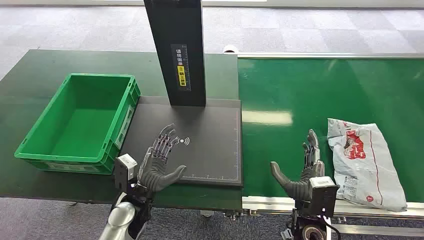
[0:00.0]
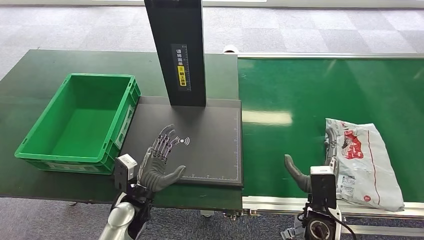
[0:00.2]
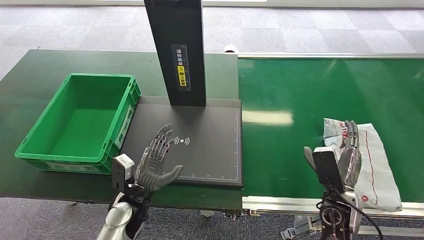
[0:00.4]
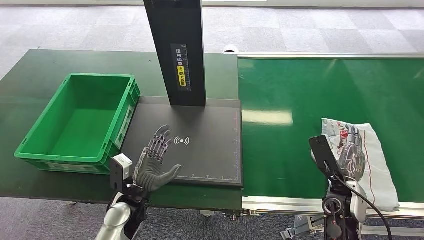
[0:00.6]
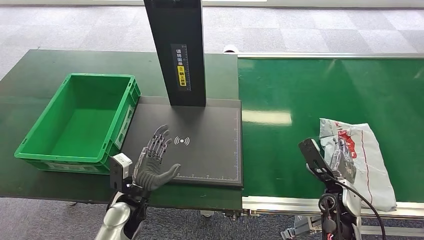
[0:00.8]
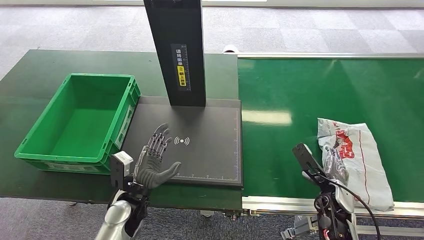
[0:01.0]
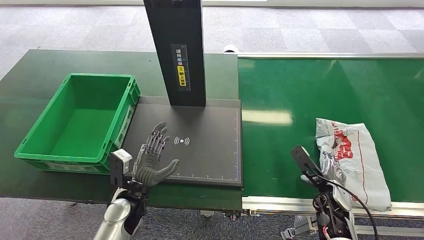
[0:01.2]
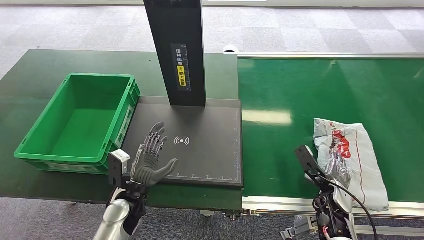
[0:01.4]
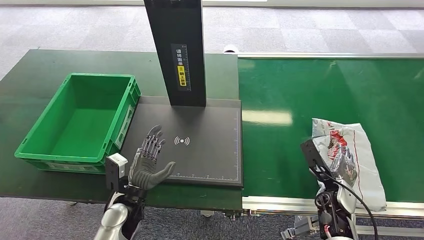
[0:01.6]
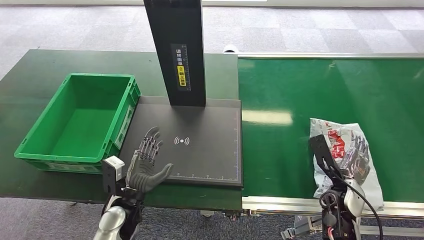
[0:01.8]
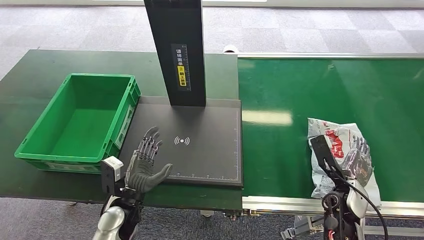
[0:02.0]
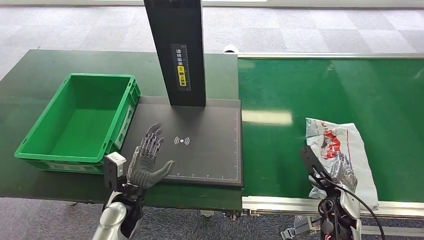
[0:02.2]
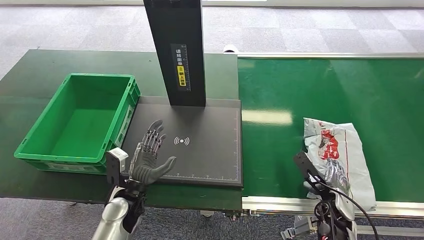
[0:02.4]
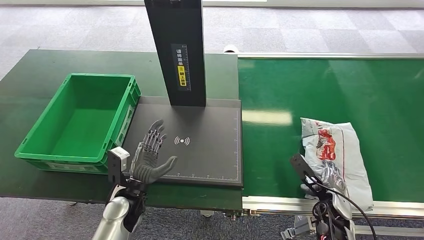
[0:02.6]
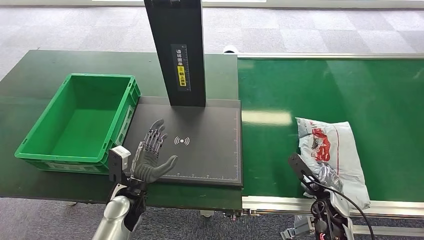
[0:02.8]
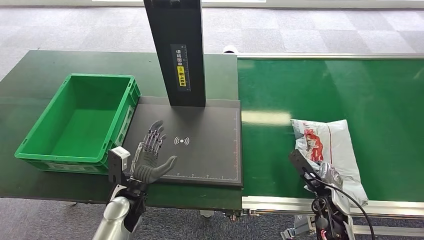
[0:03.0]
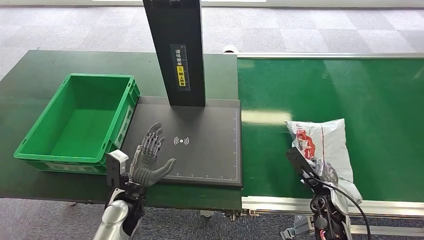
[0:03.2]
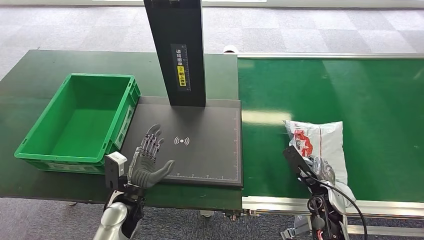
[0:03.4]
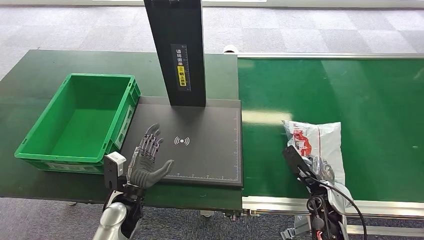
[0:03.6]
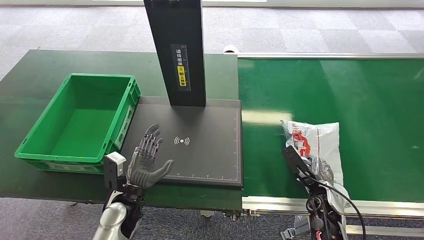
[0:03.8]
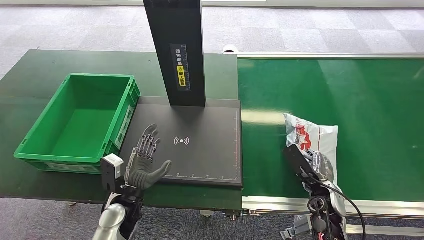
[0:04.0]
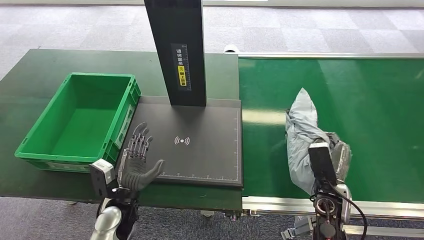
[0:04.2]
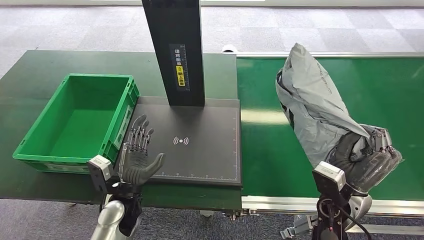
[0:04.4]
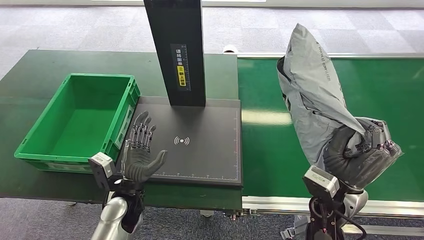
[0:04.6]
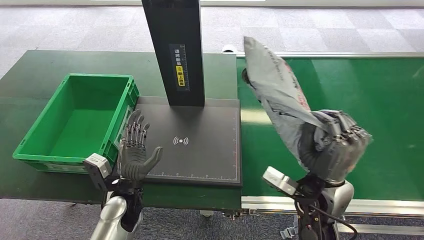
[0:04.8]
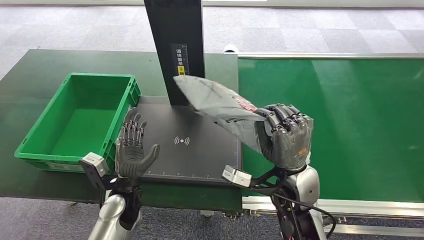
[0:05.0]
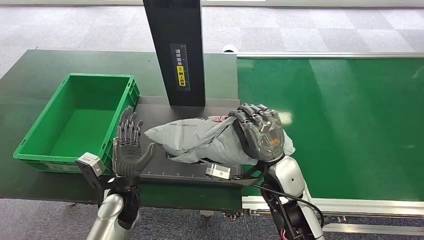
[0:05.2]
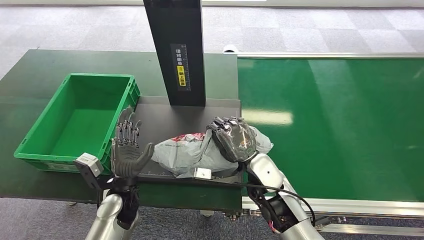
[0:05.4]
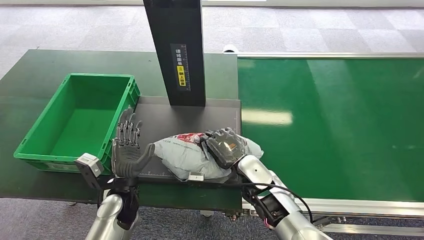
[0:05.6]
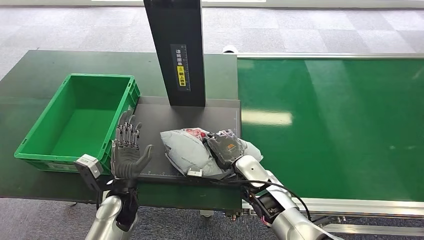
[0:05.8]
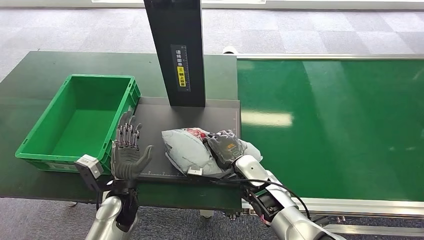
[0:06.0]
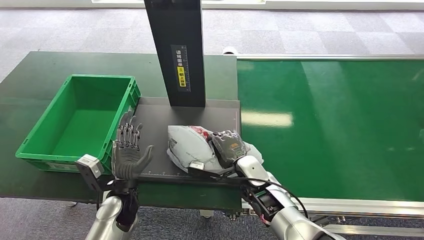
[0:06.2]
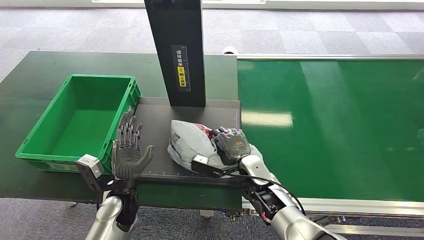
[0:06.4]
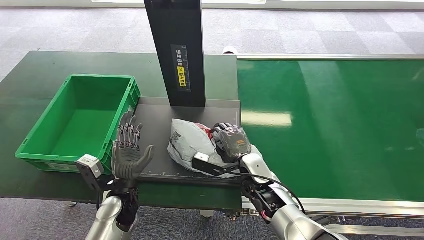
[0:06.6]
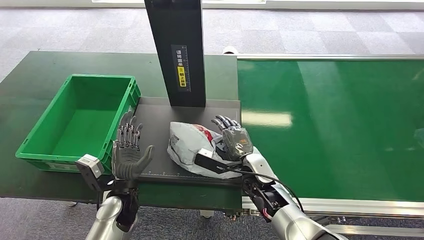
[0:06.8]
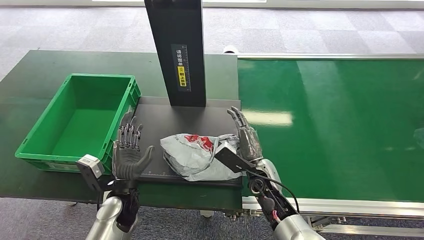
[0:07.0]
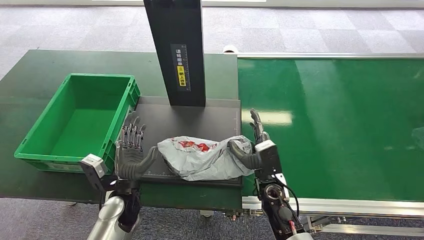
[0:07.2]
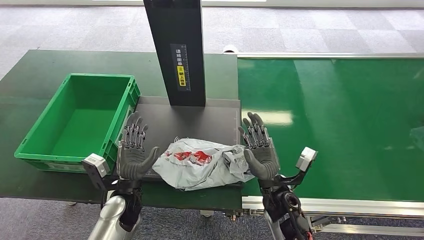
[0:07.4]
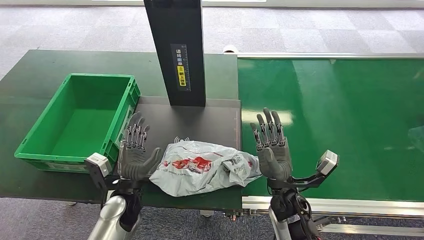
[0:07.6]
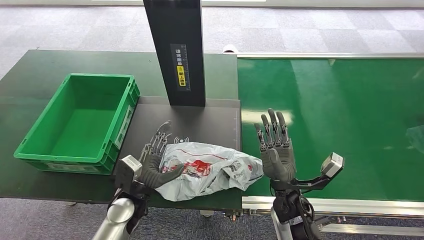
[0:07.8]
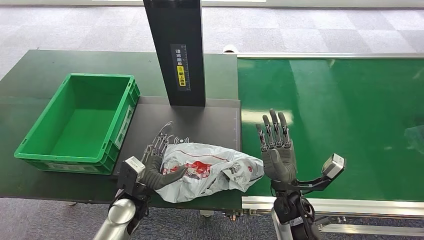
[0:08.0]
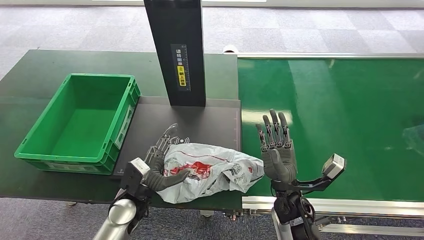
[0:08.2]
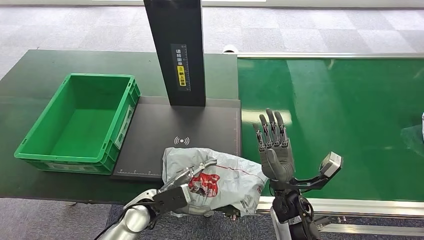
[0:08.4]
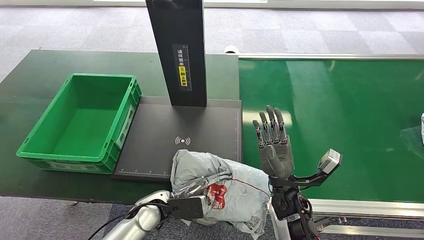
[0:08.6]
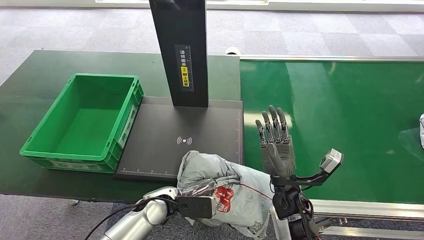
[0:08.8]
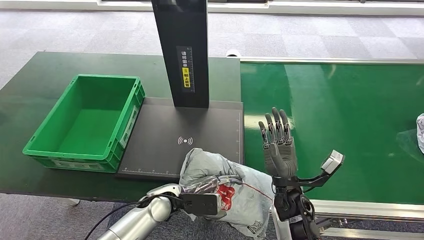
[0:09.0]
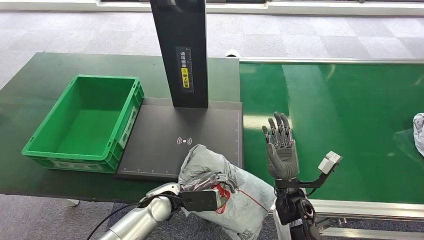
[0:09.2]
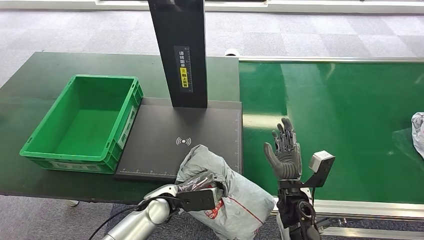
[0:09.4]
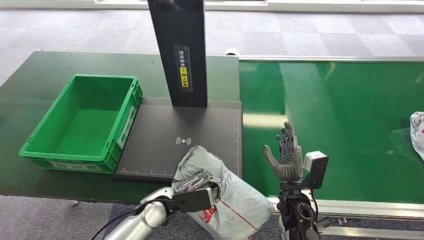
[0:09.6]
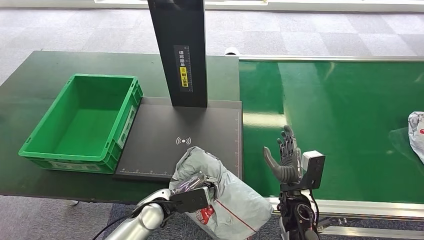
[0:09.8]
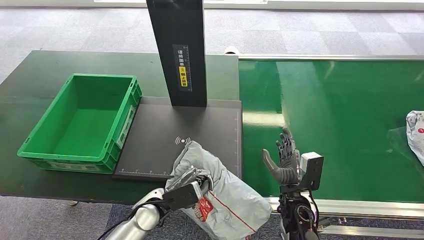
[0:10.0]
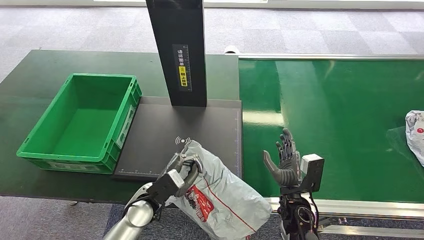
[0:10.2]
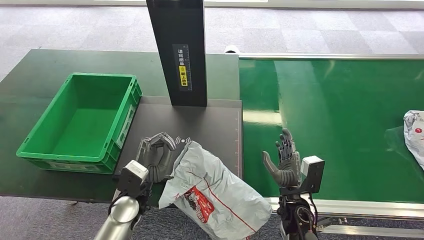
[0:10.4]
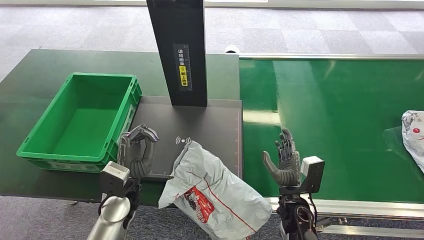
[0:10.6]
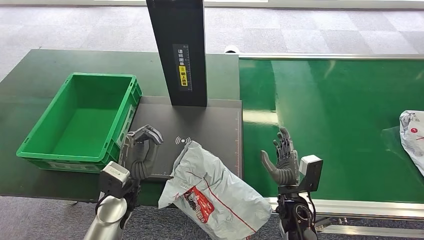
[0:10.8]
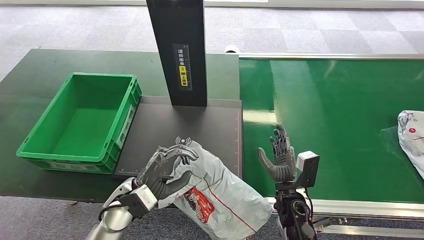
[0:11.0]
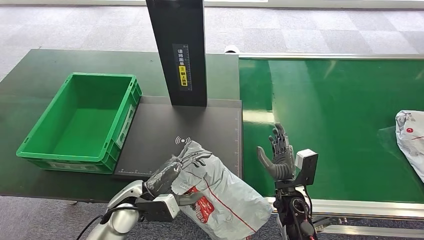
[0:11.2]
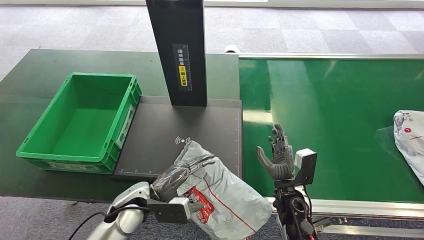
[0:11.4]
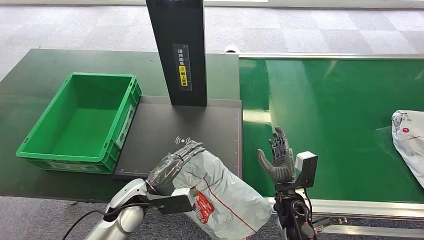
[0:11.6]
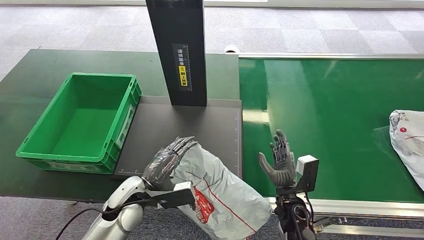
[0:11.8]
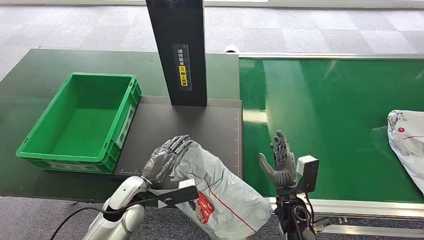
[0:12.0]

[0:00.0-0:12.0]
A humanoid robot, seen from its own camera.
Step, 0:00.0 to 0:04.2: Pick up the package from the conveyor belt.
Step, 0:04.6 to 0:07.6: Place the package onto the inbound machine.
0:01.6 to 0:03.0: The hands make only small movements.
0:03.0 to 0:04.4: The right hand is displaced upward and to the left by roughly 15 cm.
0:06.0 to 0:07.6: The right hand heads backward, covering approximately 5 cm.

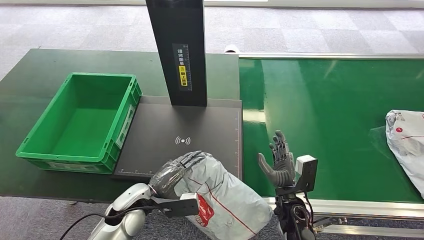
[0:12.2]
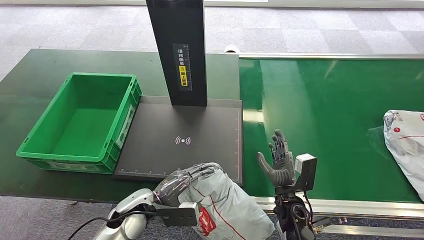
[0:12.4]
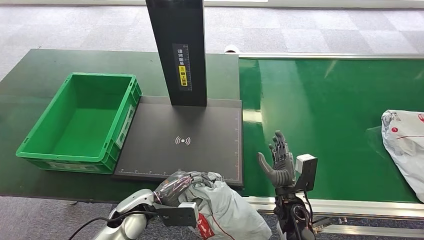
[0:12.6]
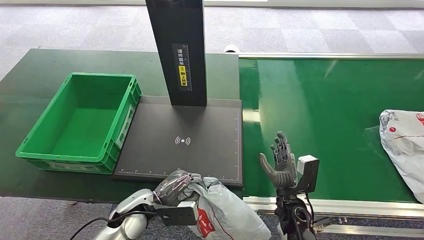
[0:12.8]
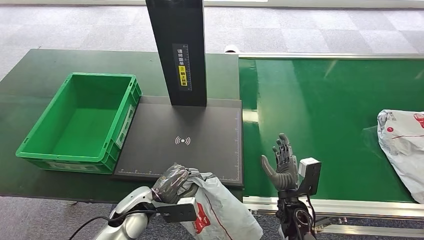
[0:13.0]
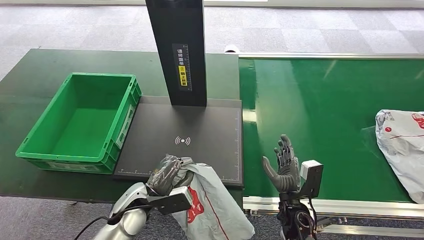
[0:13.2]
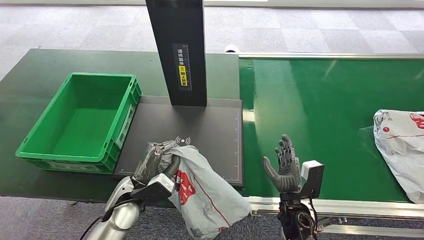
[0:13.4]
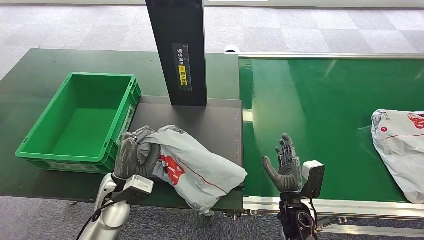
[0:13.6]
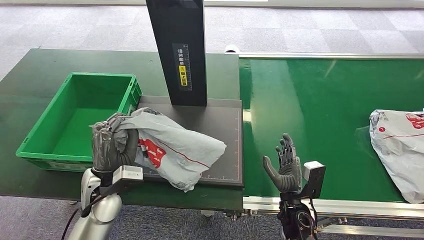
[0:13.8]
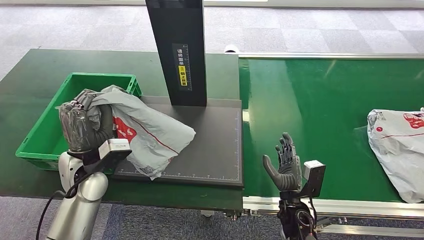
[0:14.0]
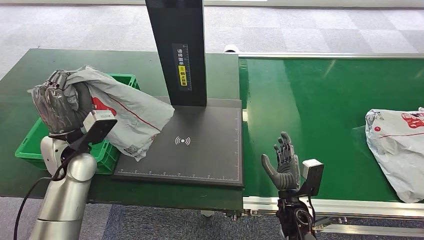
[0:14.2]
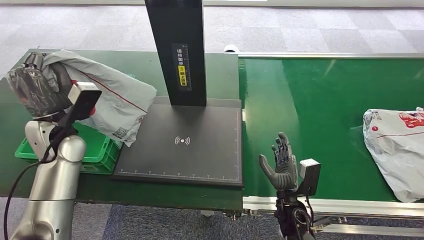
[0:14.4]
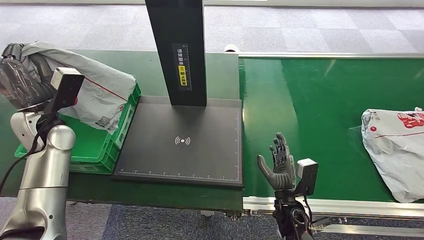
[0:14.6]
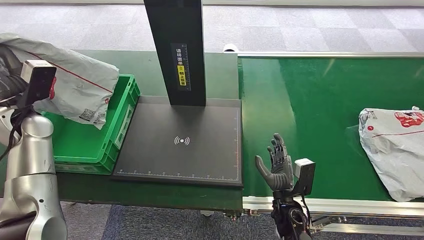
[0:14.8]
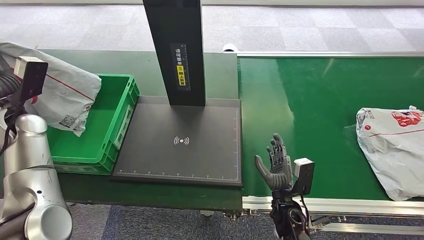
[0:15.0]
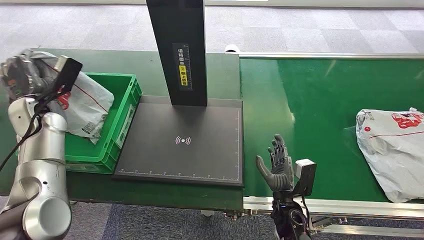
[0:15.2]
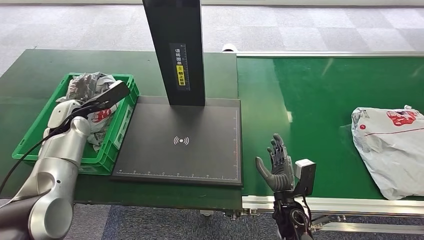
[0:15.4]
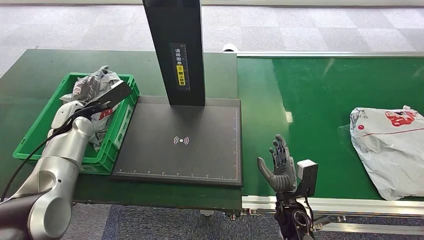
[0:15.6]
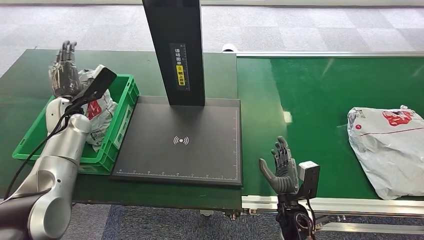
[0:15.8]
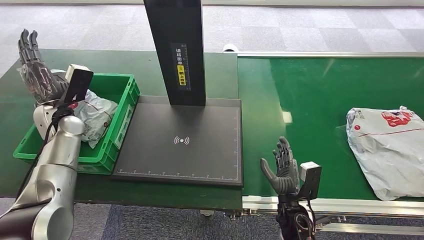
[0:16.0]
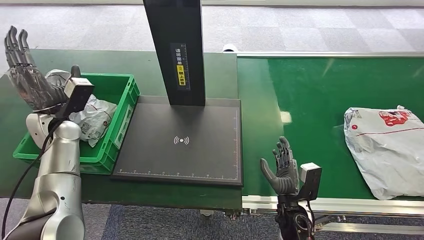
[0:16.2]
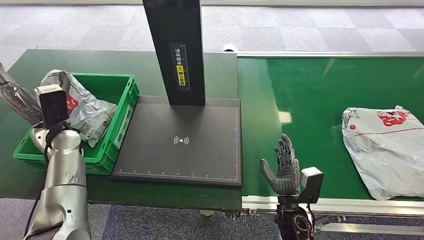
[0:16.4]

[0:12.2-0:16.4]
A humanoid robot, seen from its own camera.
Step, 0:12.2 to 0:13.8: Pick up the package from the inbound machine.
Step, 0:14.0 to 0:16.4: Place the package into the parcel locker.
0:12.2 to 0:13.6: The left hand ends up some 5 cm from where it was.

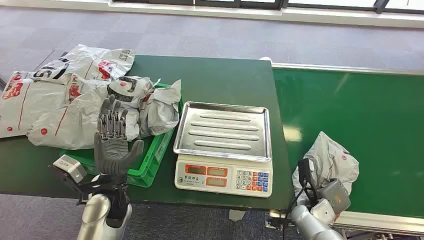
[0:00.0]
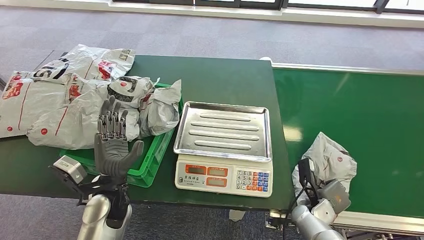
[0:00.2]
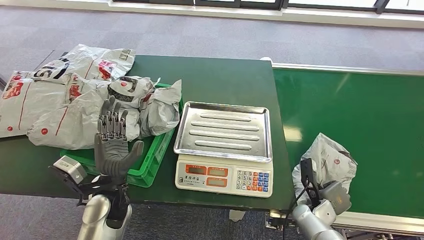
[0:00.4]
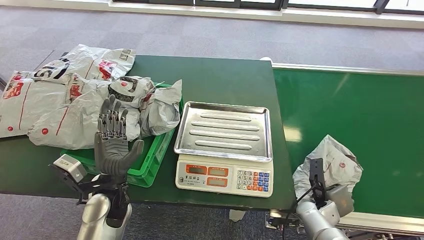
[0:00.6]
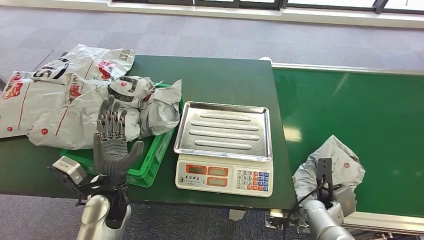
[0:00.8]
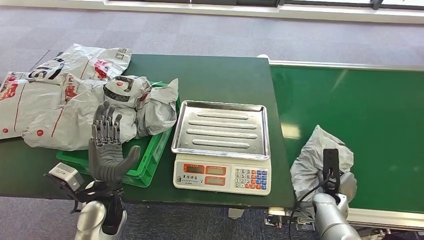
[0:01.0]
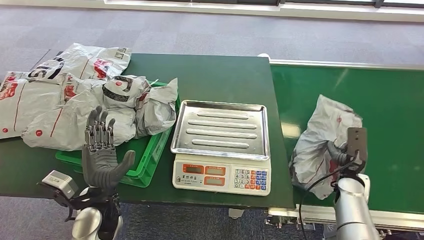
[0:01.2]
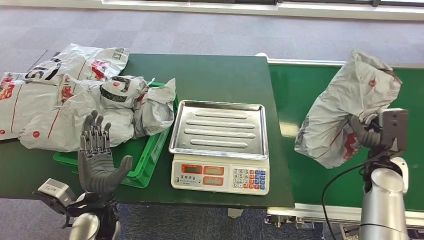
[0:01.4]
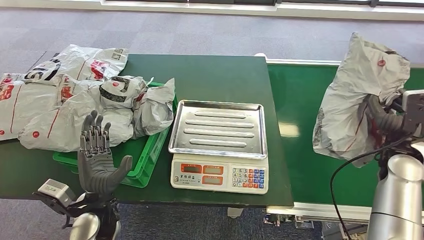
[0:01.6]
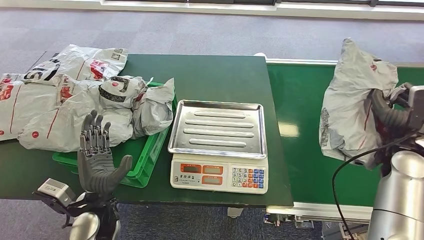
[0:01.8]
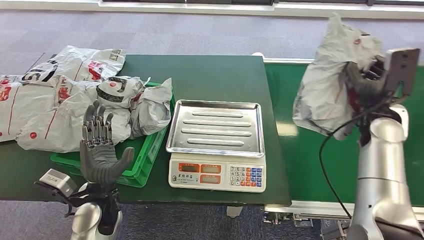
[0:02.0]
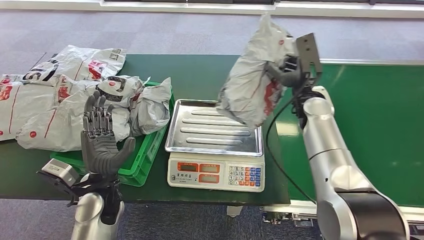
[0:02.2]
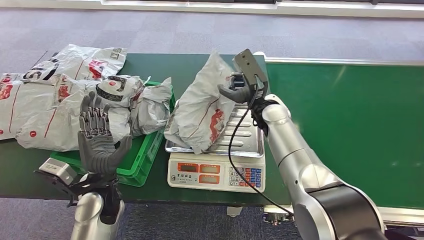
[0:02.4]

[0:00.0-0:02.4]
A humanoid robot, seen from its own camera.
Step, 0:00.0 to 0:01.6: Pick up the package from the conveyor belt.
